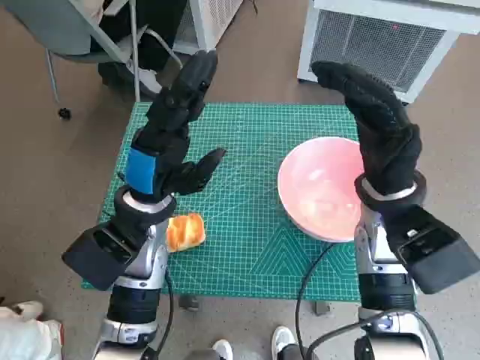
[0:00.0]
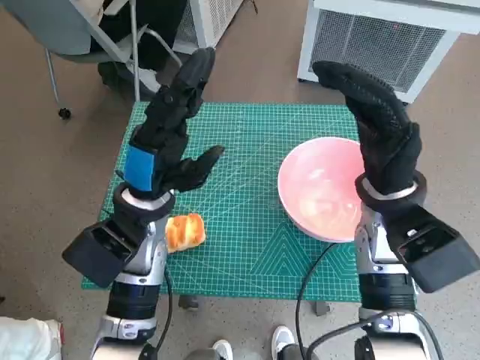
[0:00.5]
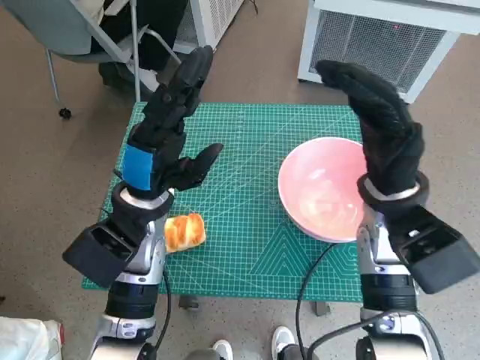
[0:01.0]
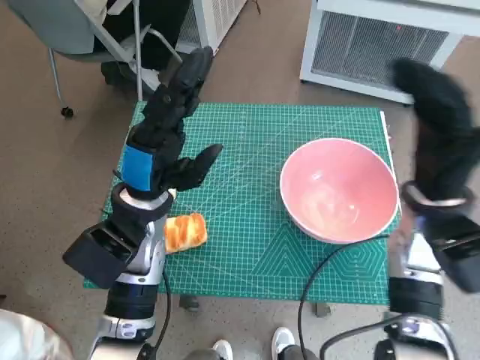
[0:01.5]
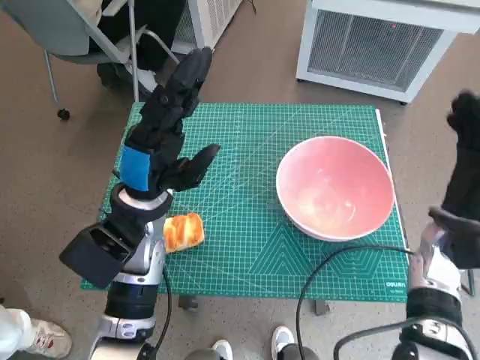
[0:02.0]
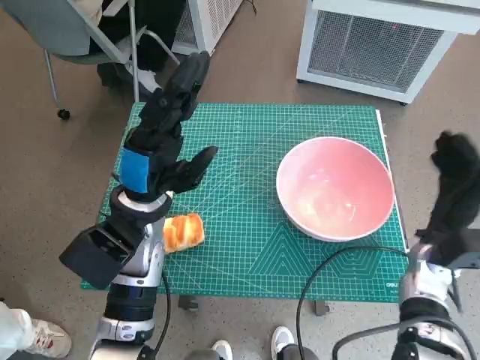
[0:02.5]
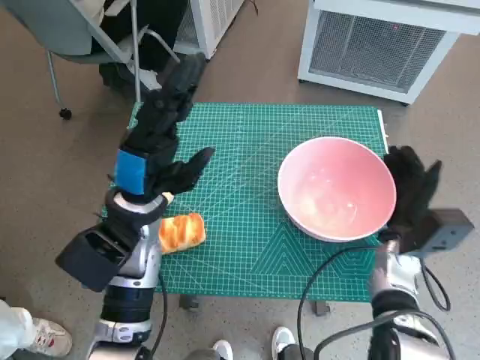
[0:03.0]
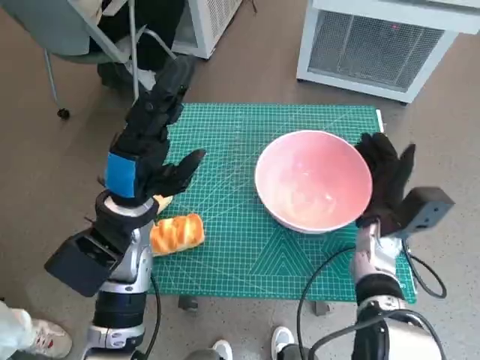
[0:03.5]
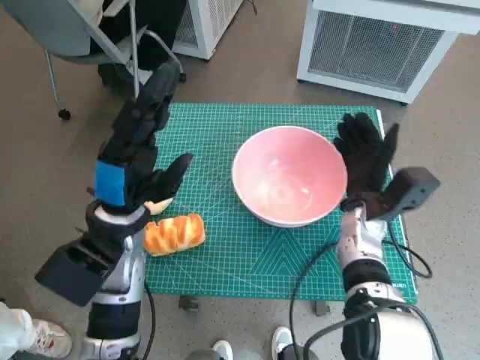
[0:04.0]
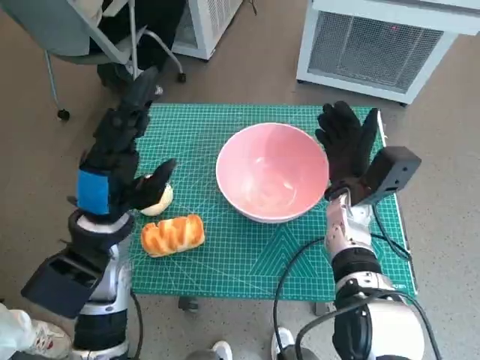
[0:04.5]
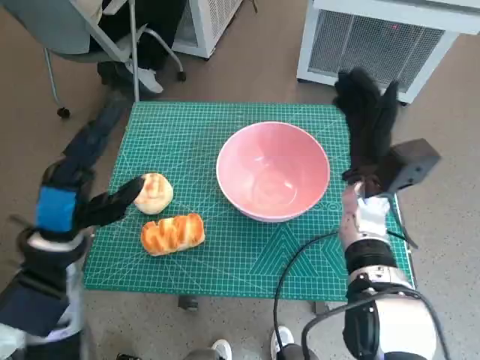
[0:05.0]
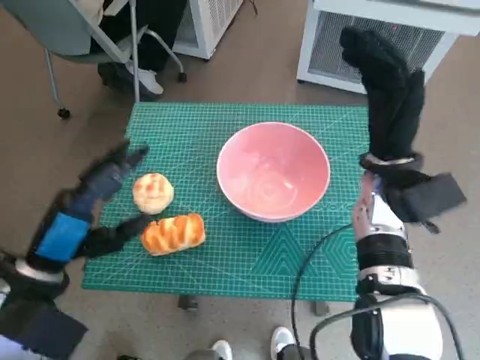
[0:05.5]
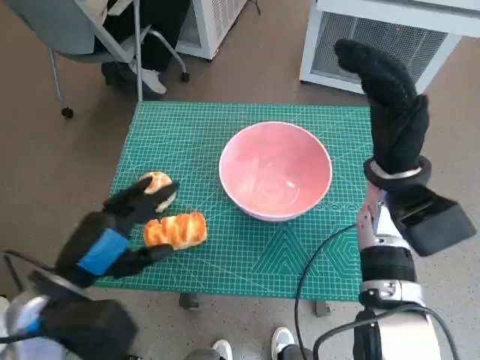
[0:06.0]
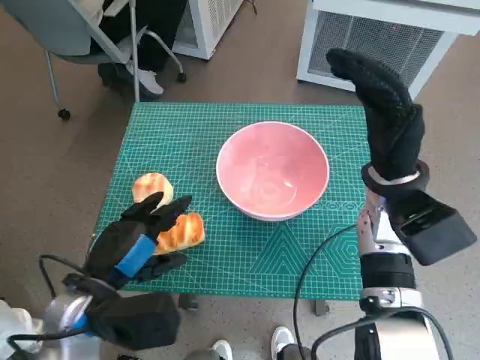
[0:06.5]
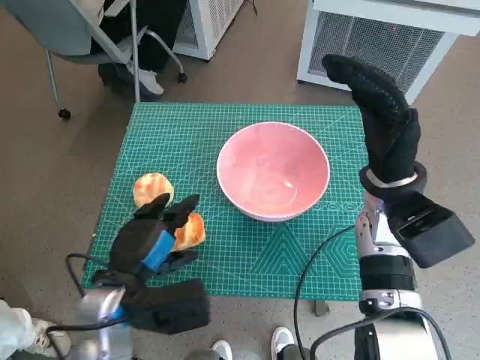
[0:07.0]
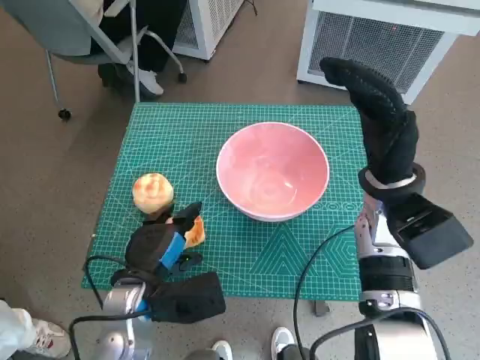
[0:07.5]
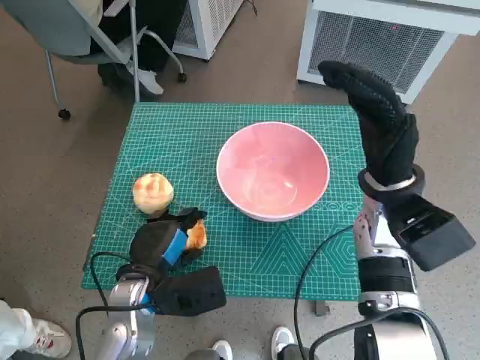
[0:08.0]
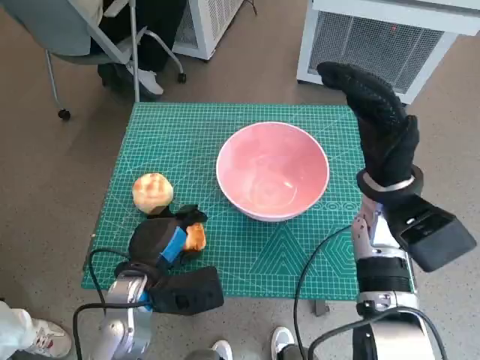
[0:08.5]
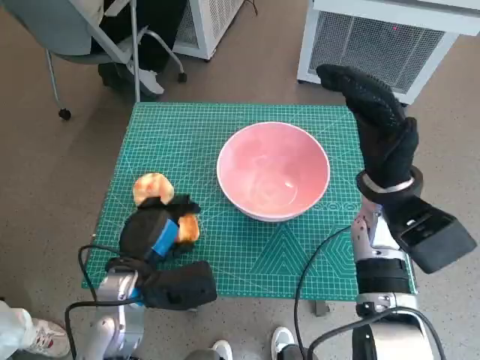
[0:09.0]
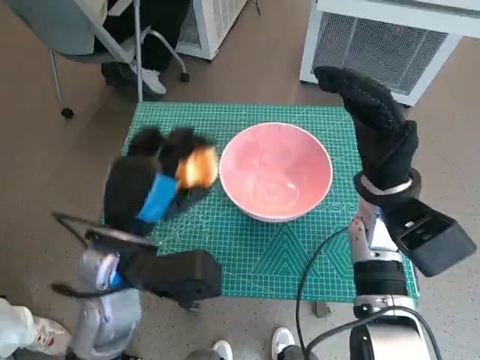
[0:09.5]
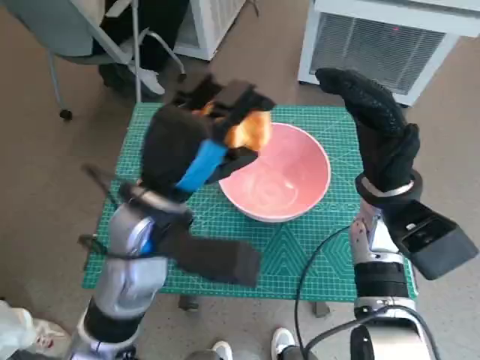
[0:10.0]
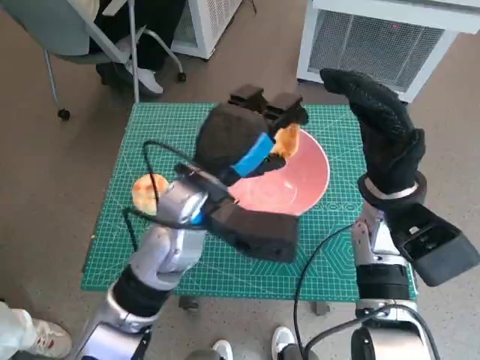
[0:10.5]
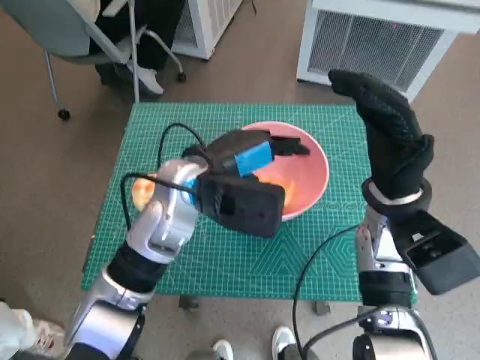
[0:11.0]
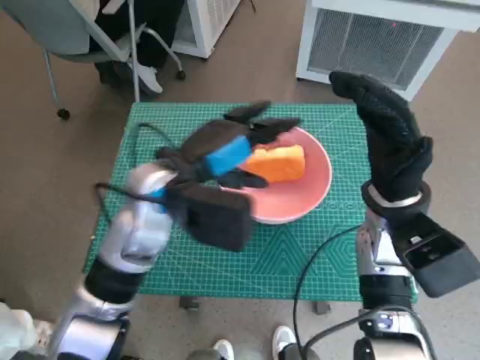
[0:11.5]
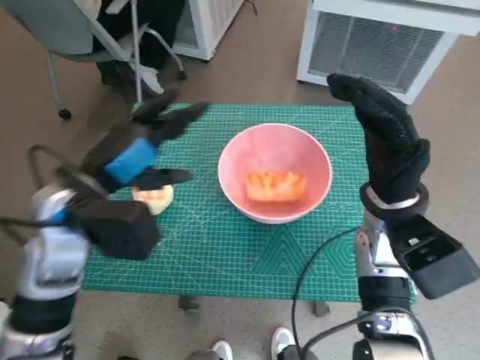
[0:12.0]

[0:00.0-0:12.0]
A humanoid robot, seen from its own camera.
Task of the whole recording: Push the bowl to the center of the table and put the bread into the bowl.
Step, 0:00.0 to 0:04.5: Move the pink bowl to the center of table with right hand.
Step, 0:05.0 to 0:08.0: Grasp the long bread with left hand.
Step, 0:08.5 to 0:11.0: Place the long bread in pink bowl with left hand.
0:02.0 to 0:04.0: The right hand moves to the left, approximately 10 cm.
0:04.0 to 0:06.0: The left hand shifts approximately 10 cm backward; the right hand is displaced upward by about 10 cm.
0:06.0 to 0:08.0: The left hand shifts some 10 cm downward and to the right.
0:08.0 to 0:10.0: The left hand travels upward by about 15 cm.
0:10.0 to 0:12.0: The left hand heads to the left, covering some 10 cm.

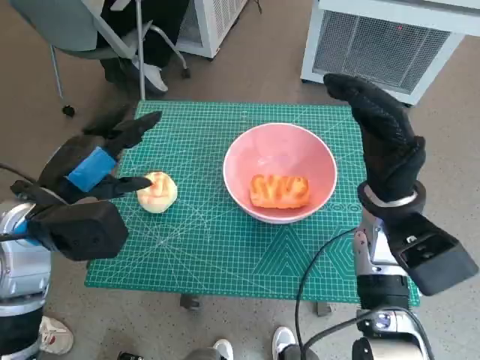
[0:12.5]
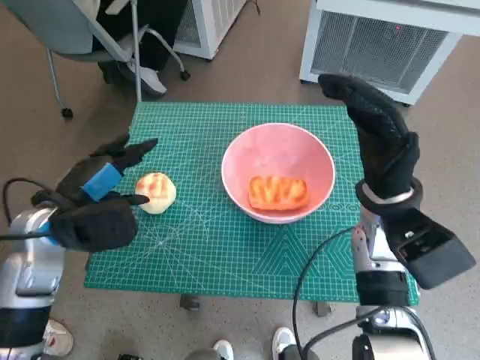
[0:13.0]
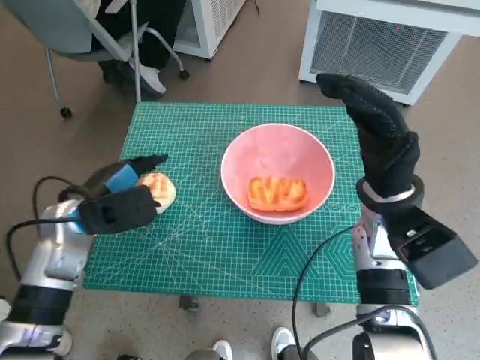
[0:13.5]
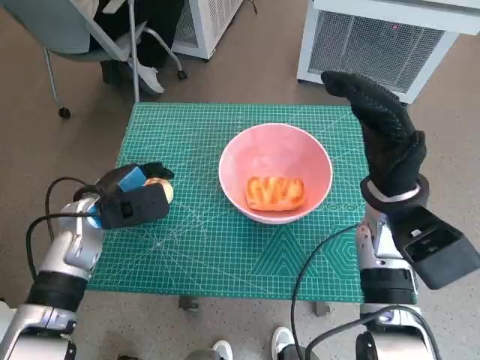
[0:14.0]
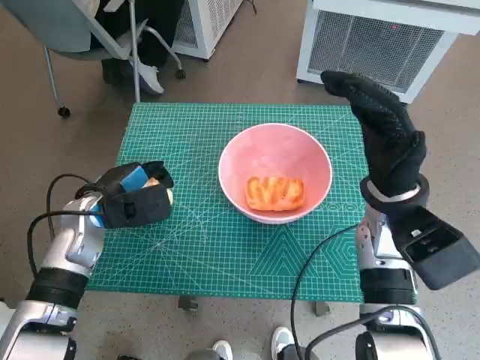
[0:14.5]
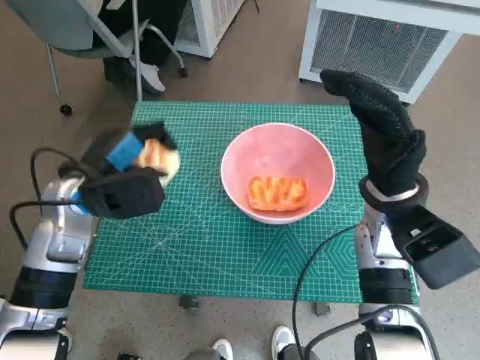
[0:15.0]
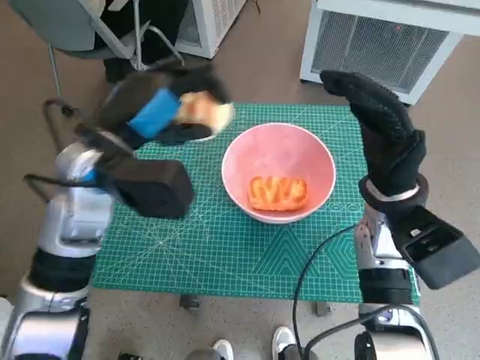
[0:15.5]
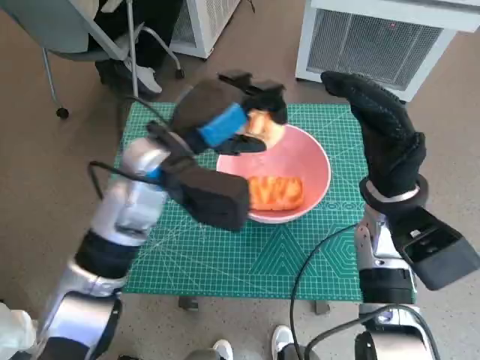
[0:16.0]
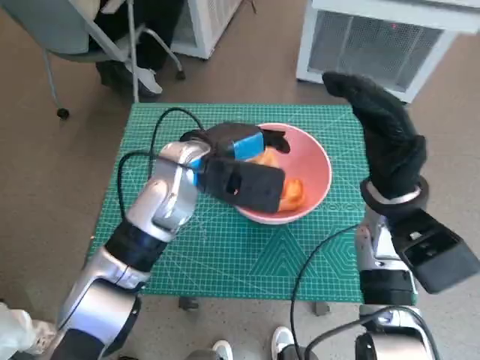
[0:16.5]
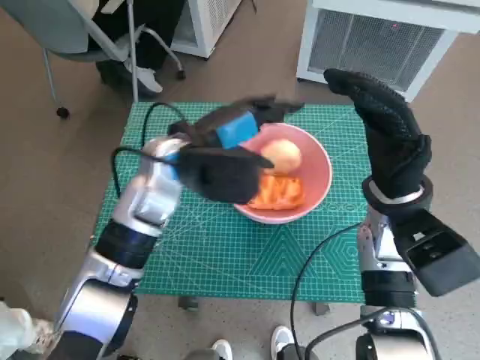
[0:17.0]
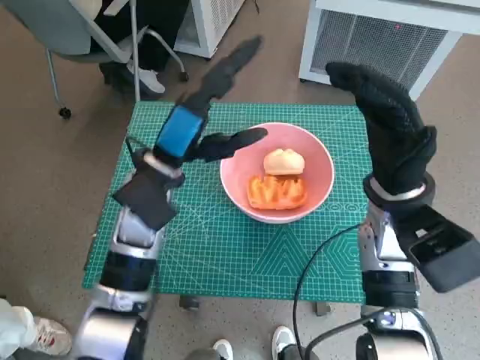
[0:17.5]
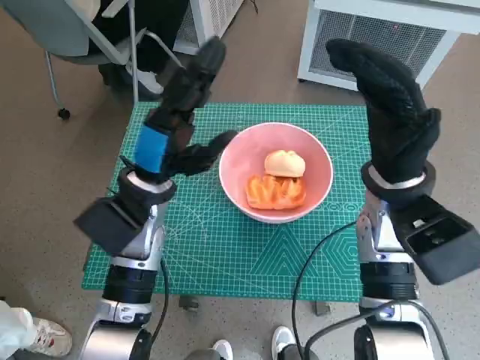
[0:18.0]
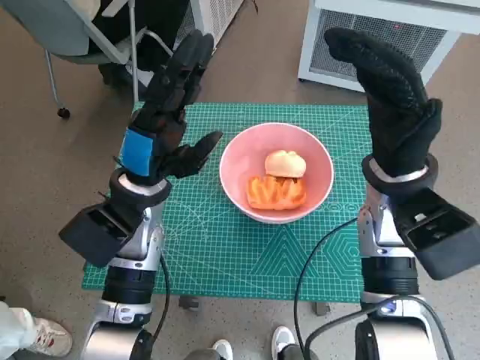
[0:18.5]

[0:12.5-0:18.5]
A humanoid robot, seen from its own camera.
Task of the whole recording: Push the bowl to the center of the table and put the bread into the bowl.
Step, 0:12.5 to 0:14.0: Grasp the round bread with left hand.
Step, 0:14.5 to 0:17.0: Place the round bread in pink bowl with left hand.
0:12.5 to 0:14.5: The left hand shifts some 10 cm downward and forward.
0:14.5 to 0:16.5: The left hand goes approximately 20 cm to the right and upward.
0:16.5 to 0:18.5: The left hand moves to the left, some 5 cm.

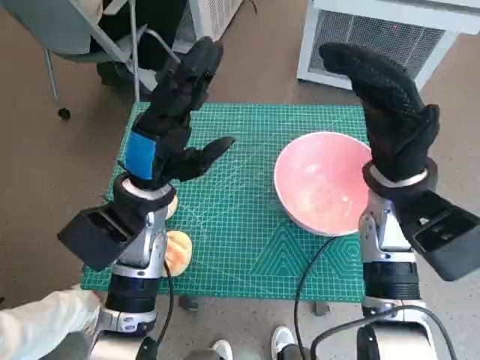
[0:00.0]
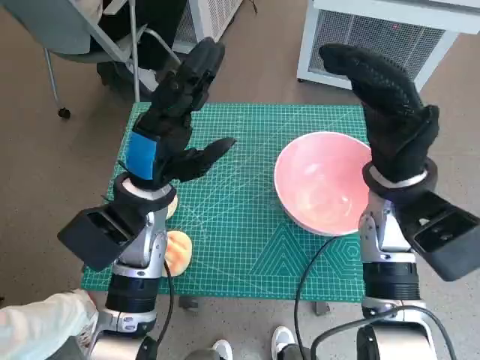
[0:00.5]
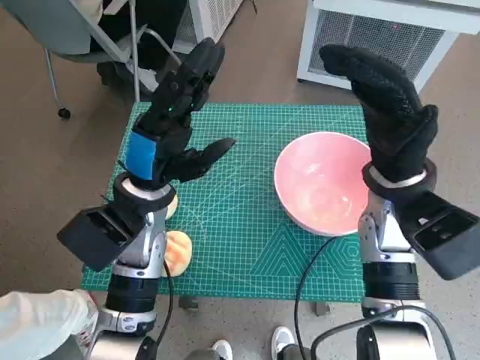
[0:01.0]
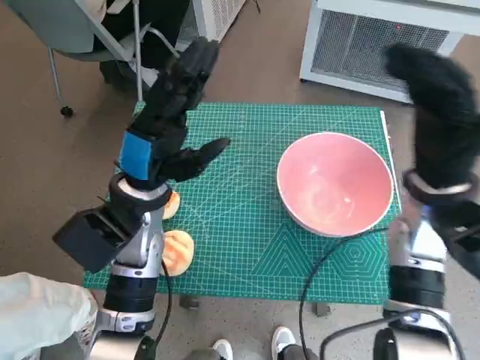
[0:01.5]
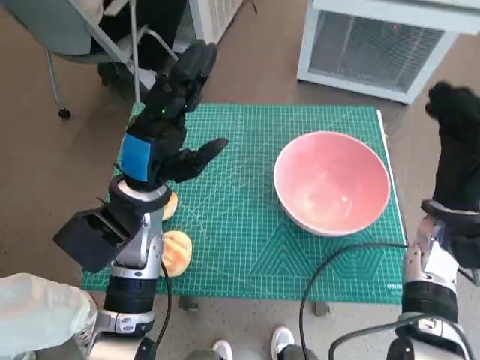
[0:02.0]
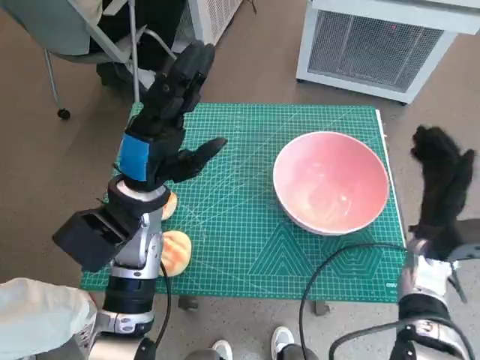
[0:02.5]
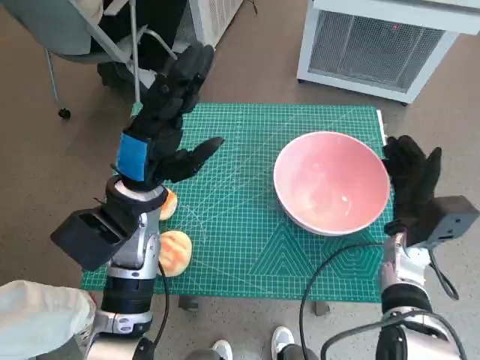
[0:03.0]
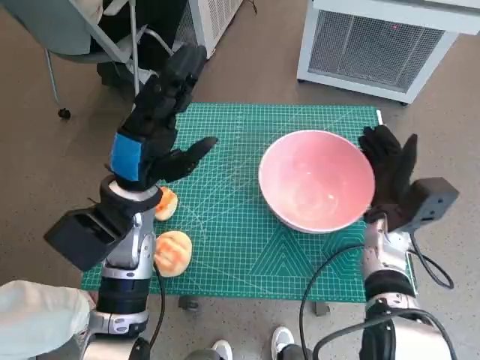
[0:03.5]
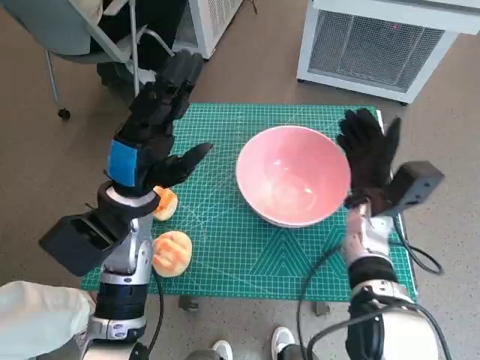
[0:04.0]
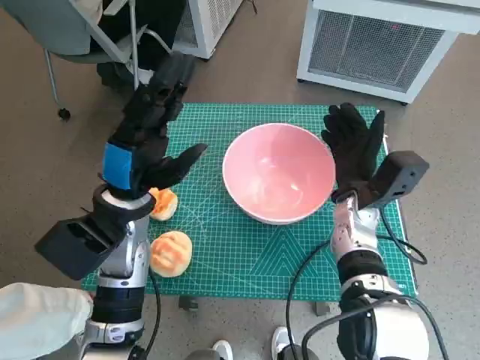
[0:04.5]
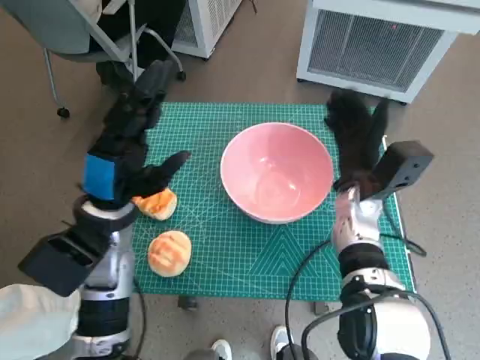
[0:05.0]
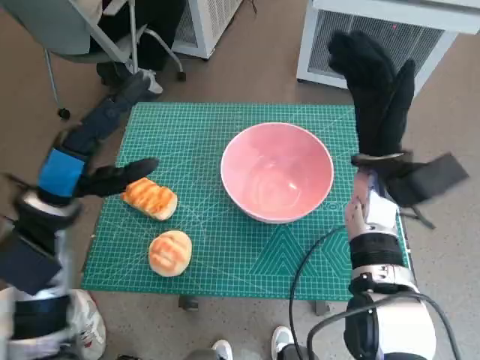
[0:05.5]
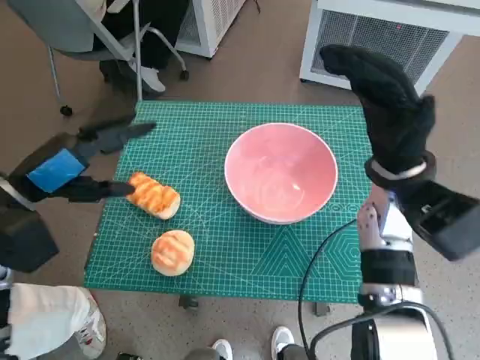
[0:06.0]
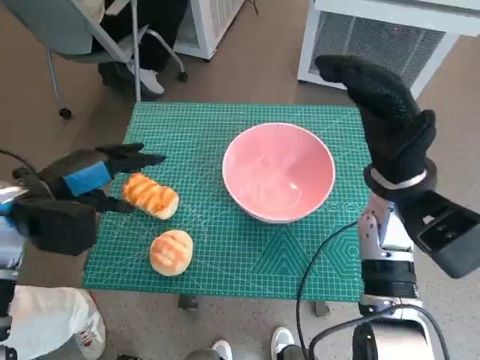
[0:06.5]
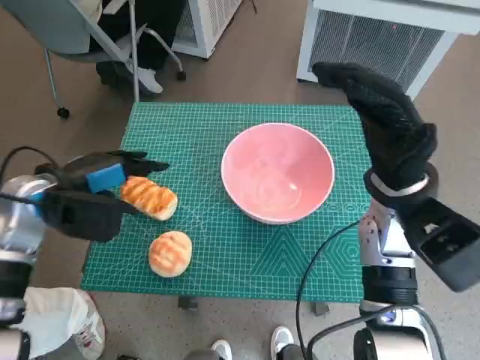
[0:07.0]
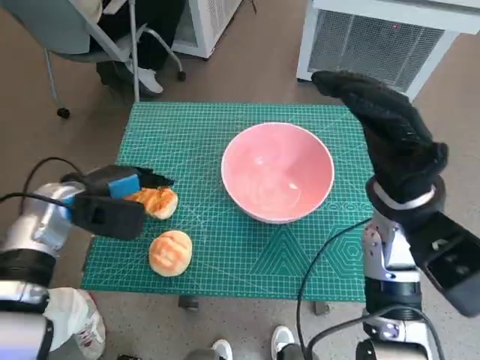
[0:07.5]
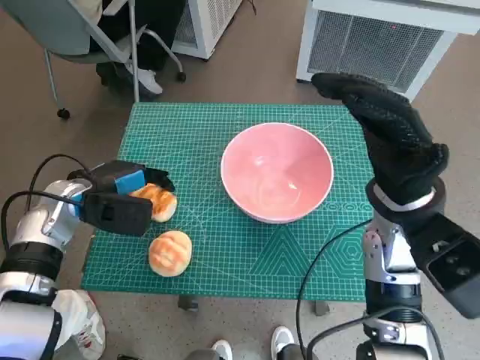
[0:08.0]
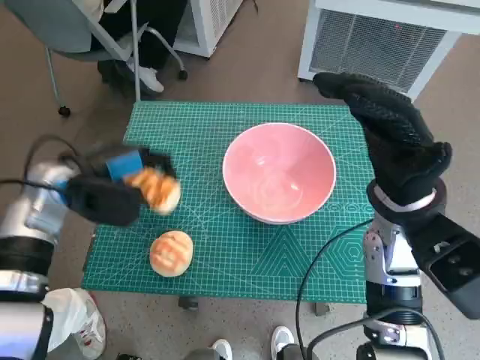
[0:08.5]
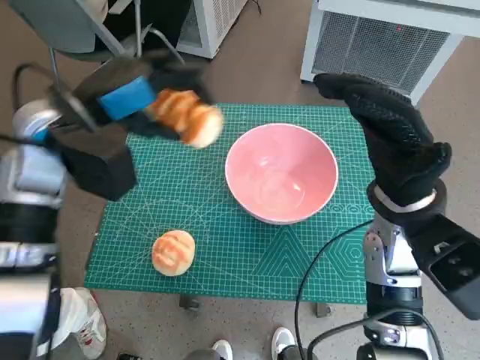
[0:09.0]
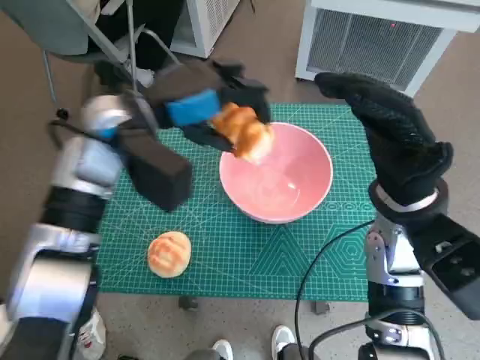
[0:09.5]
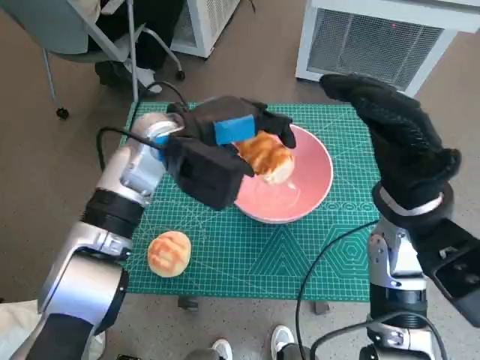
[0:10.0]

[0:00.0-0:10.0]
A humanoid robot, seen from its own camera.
Task of the whole recording: Push the bowl to the center of the table and put the bread into the bowl.
Step, 0:00.0 to 0:05.0: Move the pink bowl to the center of table with right hand.
Step, 0:05.5 to 0:08.0: Grasp the long bread with left hand.
0:02.0 to 0:04.0: The right hand shifts roughly 10 cm to the left and downward.
0:04.0 to 0:06.0: The right hand is displaced upward by roughly 10 cm; the left hand heads to the left, covering approximately 10 cm.
0:06.0 to 0:08.0: The left hand moves downward and forward, some 10 cm.
0:08.0 to 0:10.0: The left hand moves to the right and upward, about 20 cm.
